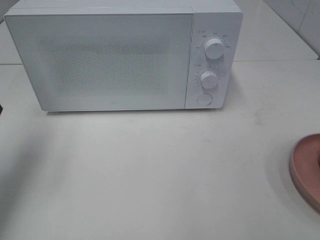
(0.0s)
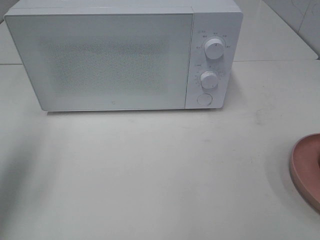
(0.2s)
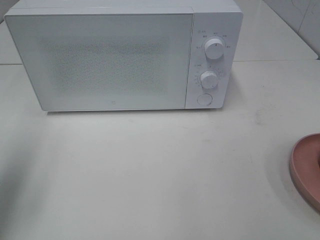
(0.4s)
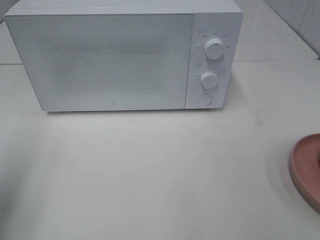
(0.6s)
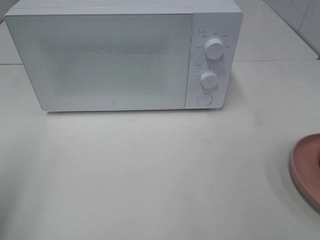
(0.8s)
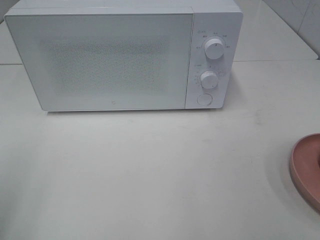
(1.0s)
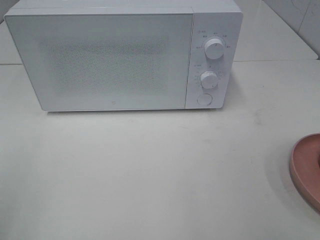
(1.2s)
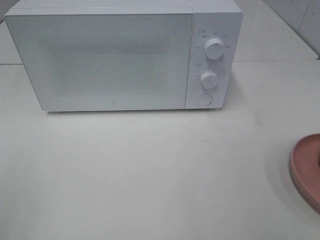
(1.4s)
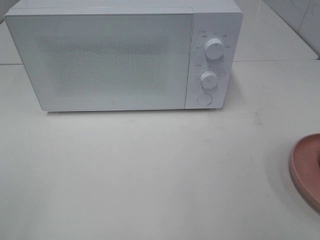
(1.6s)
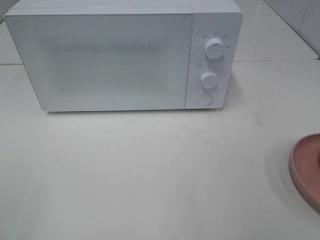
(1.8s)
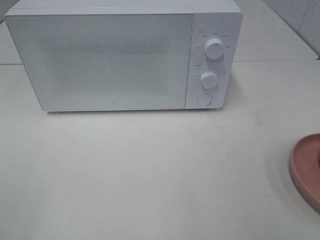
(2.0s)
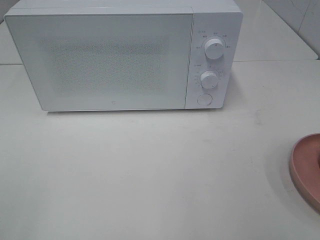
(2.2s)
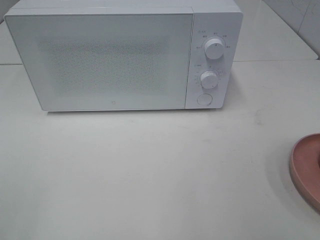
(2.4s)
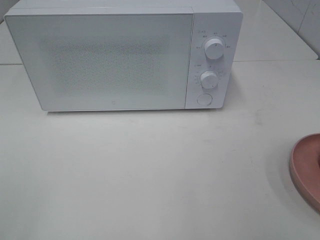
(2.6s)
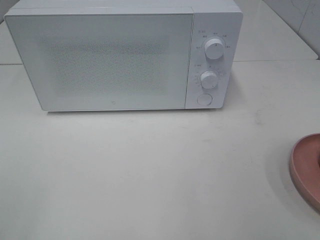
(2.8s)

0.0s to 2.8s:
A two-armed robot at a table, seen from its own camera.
Task of the whole recording: Heat the burger.
0.0s to 1.4s: The left gripper goes some 20 cm backward.

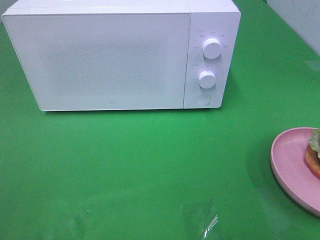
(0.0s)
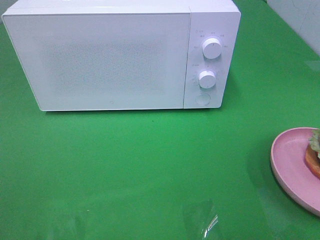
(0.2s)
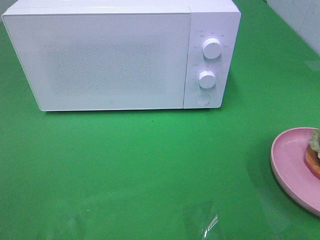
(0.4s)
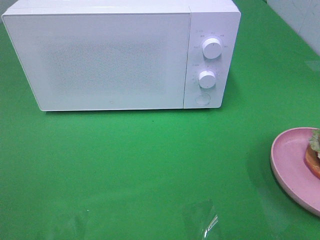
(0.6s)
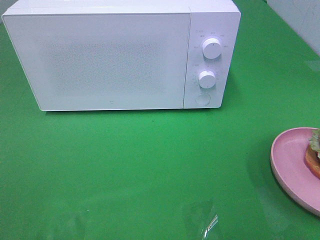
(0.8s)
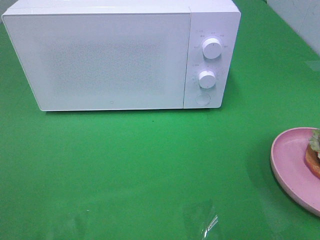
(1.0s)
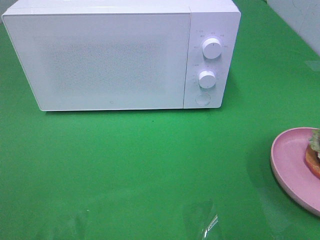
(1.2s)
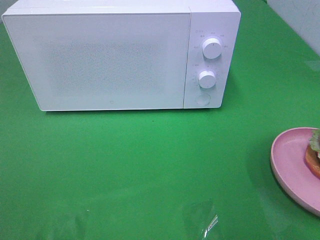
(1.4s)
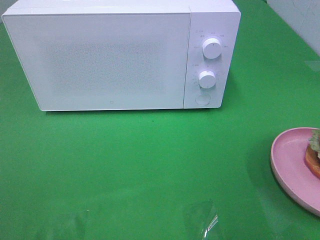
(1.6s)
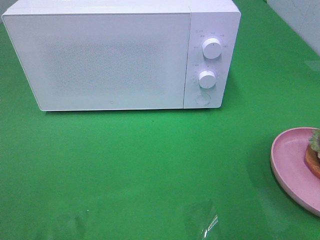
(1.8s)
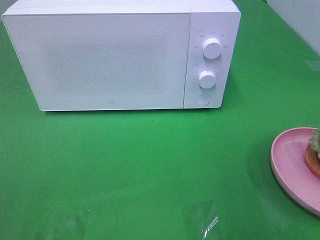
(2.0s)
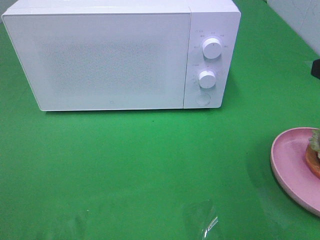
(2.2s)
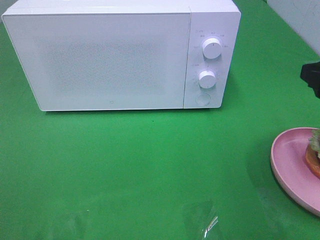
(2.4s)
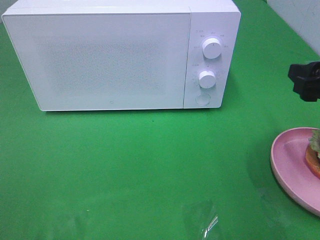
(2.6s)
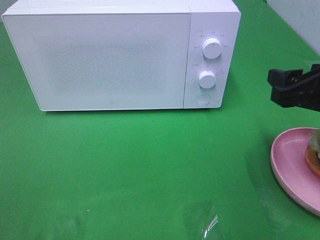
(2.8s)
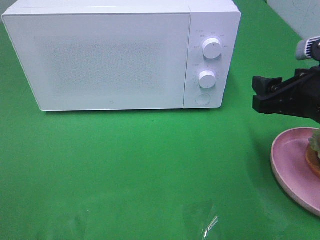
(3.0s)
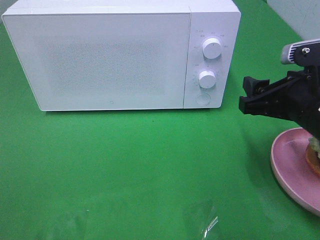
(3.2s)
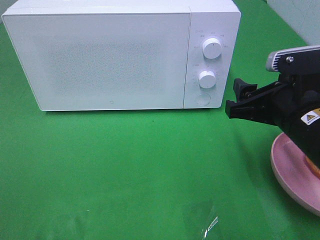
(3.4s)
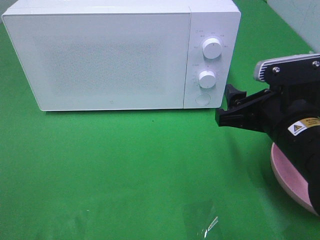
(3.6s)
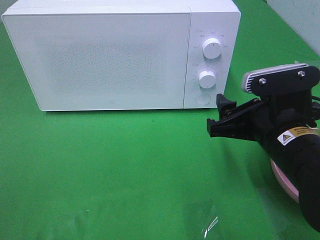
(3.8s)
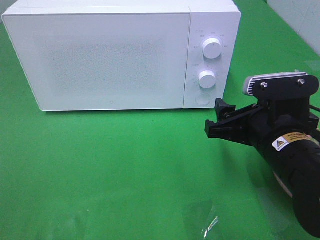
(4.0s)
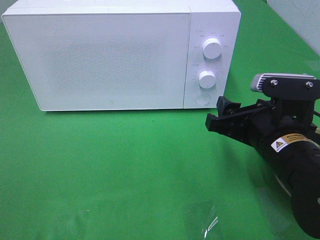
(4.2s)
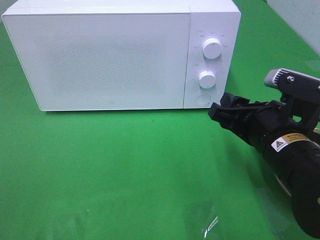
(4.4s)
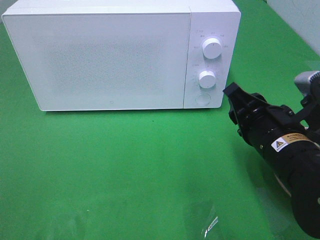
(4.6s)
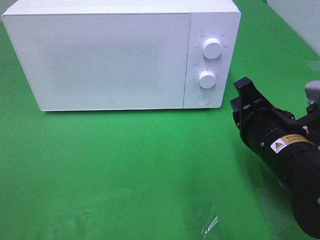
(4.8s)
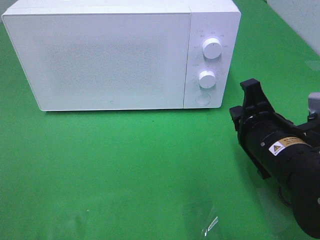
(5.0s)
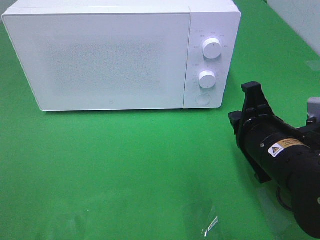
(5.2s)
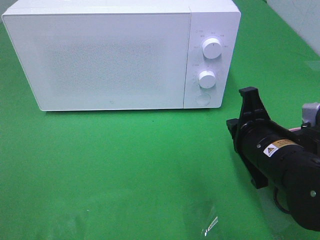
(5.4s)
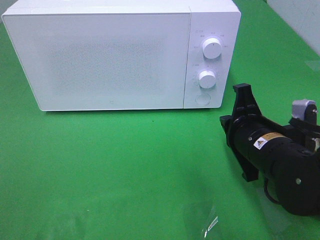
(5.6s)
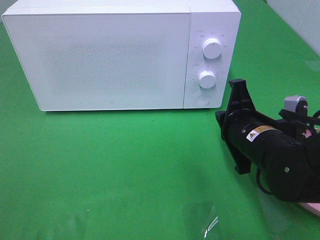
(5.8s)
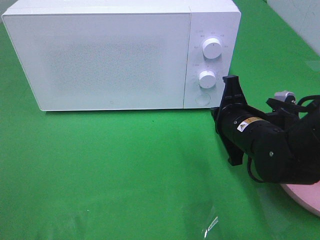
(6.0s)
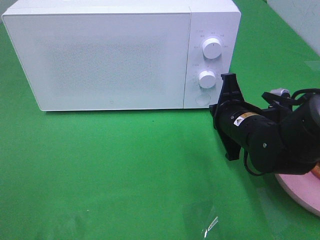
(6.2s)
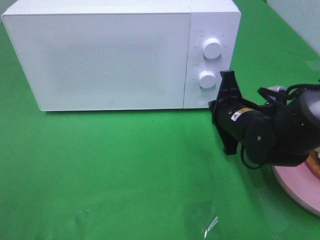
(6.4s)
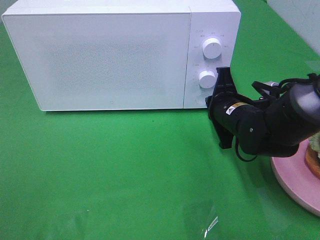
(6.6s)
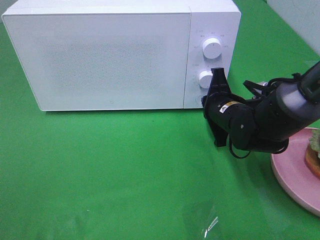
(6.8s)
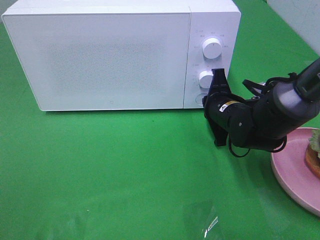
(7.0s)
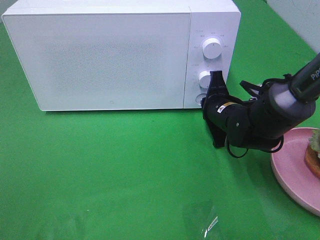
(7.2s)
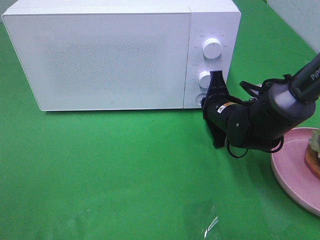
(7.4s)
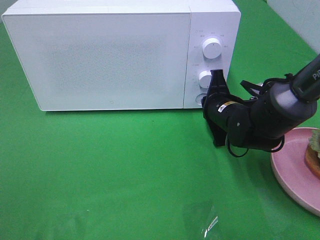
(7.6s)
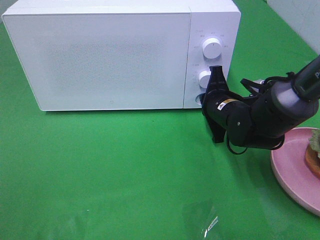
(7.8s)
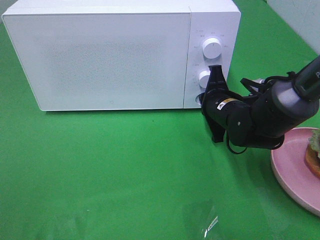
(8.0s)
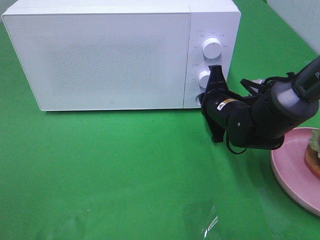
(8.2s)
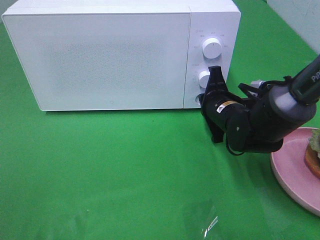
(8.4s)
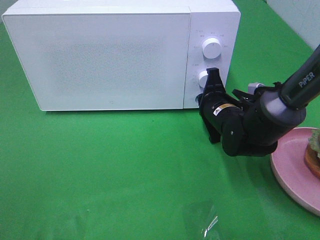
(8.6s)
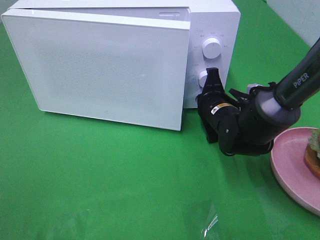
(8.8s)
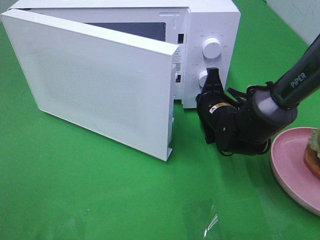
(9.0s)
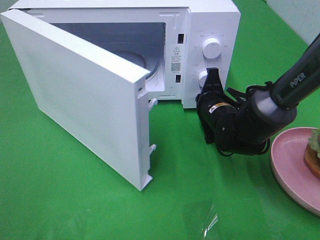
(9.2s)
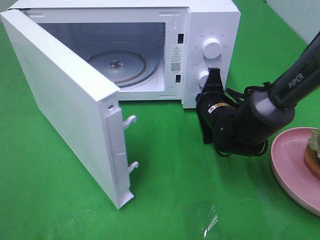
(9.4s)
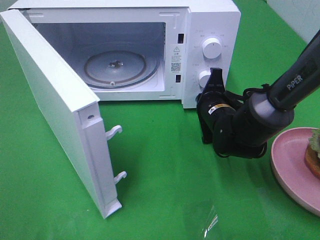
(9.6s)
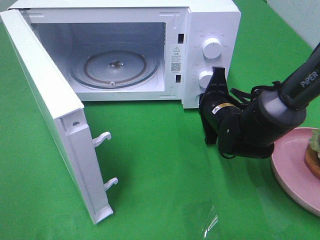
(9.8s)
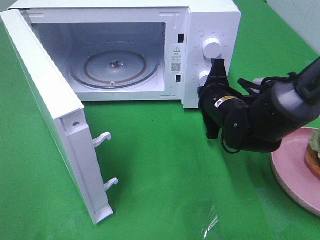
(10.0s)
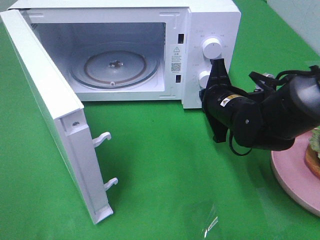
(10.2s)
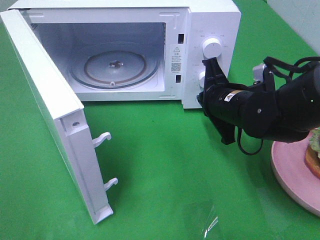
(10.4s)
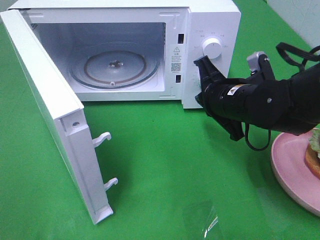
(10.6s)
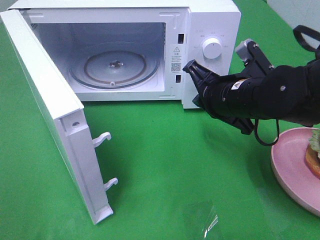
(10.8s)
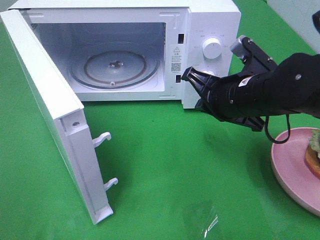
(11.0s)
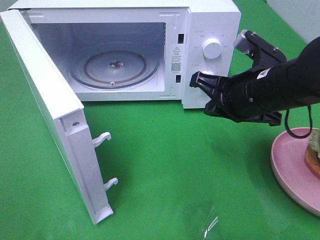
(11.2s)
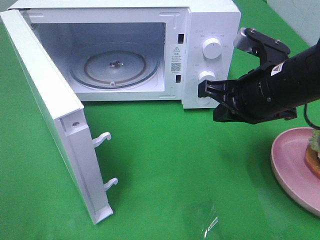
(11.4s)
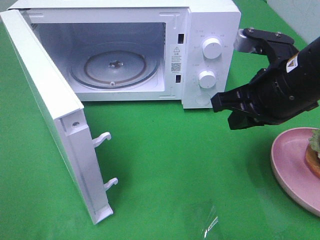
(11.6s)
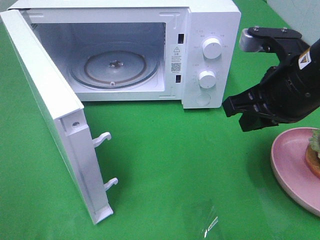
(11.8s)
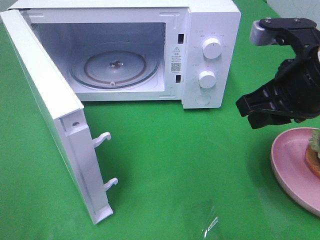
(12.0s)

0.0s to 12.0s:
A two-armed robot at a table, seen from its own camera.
Task of the whole recording: Heat the burger.
Step, 0.0s to 10.0s: Right hand: press the switch.
1.6s to 3.0s: The right gripper goes roughly 15 cm downward, forward and to the left.
3.0s to 4.4s: The right gripper moves to the left, some 5 cm.
4.4s to 6.0s: The right gripper goes roughly 5 cm forward, and closes.
6.0s to 7.6s: The right gripper is displaced forward by about 10 cm.
7.6s to 9.0s: The grippers move only a little.
9.0s to 10.4s: The right gripper is displaced upward by approximately 5 cm.
10.4s to 12.0s: The right gripper travels upward, backward and to the right by some 15 cm, and opens its fingers.

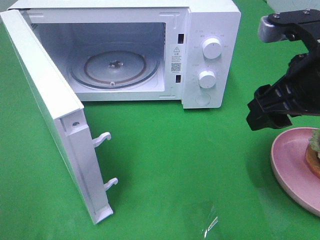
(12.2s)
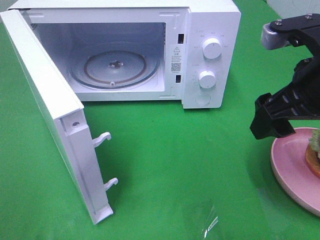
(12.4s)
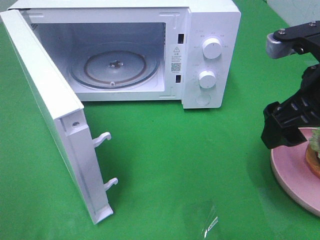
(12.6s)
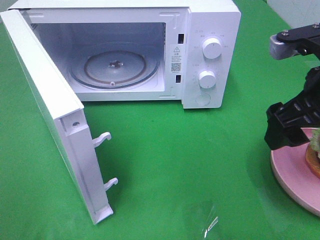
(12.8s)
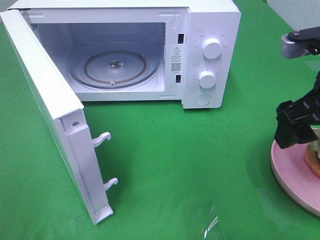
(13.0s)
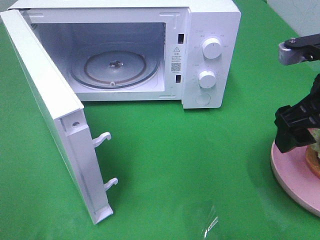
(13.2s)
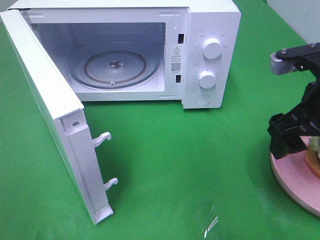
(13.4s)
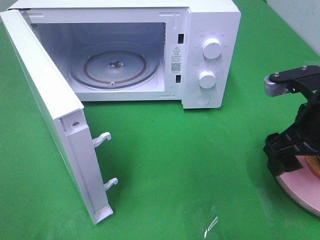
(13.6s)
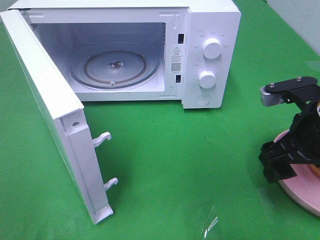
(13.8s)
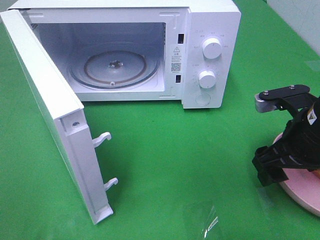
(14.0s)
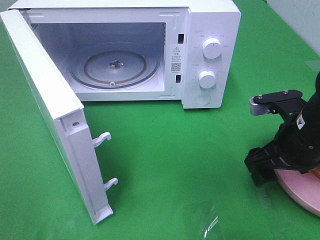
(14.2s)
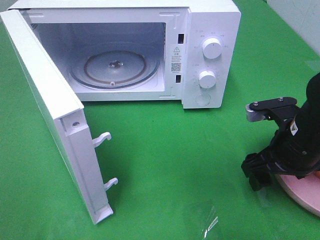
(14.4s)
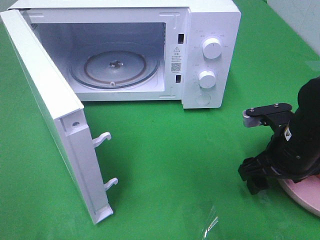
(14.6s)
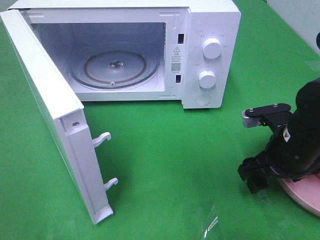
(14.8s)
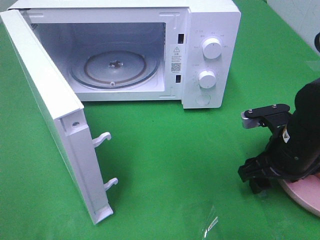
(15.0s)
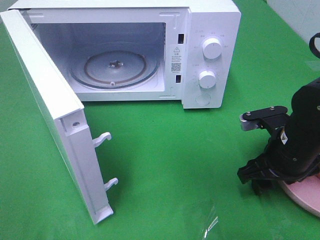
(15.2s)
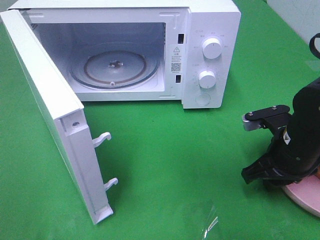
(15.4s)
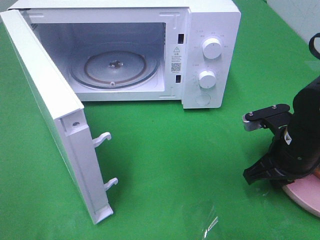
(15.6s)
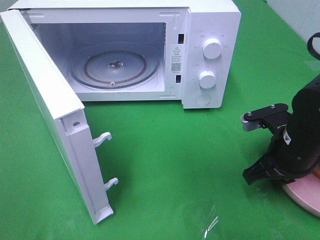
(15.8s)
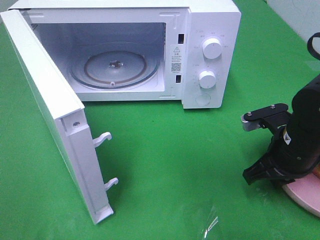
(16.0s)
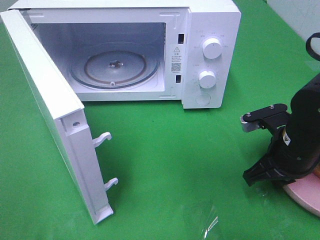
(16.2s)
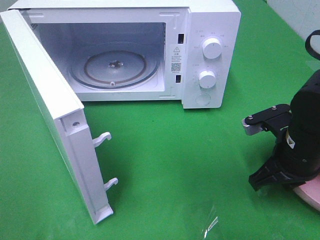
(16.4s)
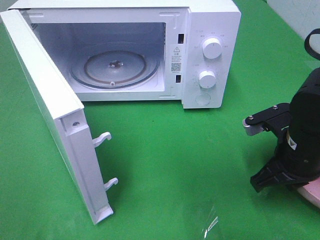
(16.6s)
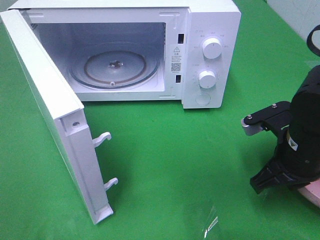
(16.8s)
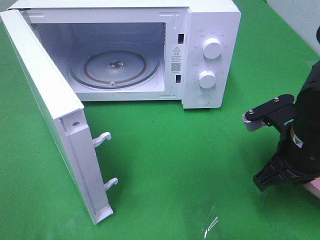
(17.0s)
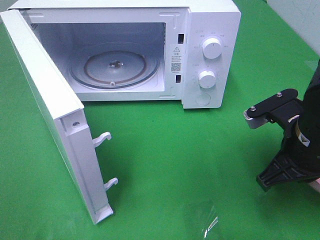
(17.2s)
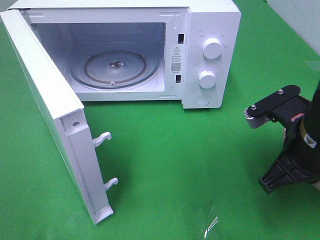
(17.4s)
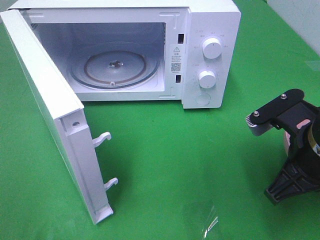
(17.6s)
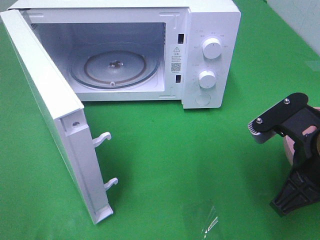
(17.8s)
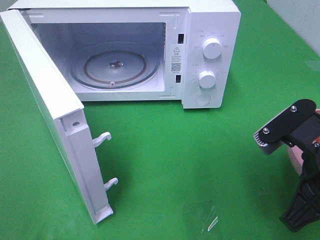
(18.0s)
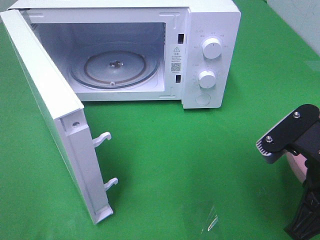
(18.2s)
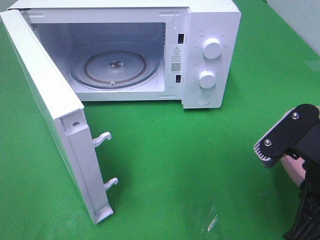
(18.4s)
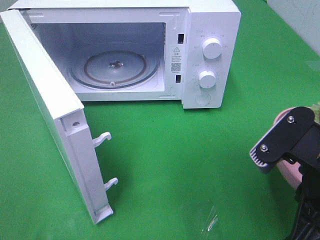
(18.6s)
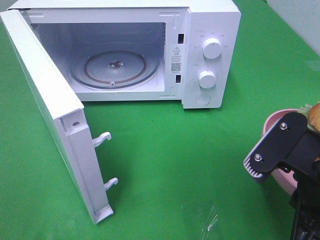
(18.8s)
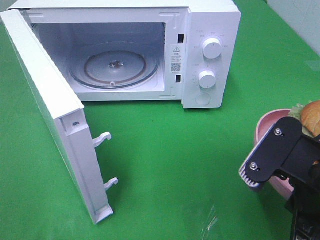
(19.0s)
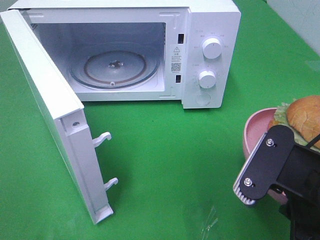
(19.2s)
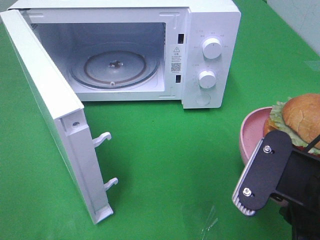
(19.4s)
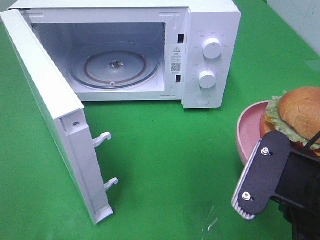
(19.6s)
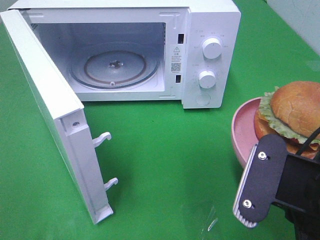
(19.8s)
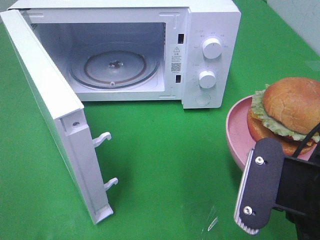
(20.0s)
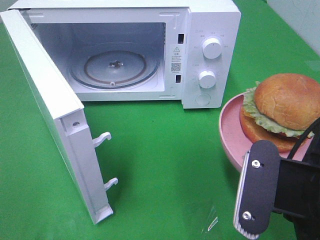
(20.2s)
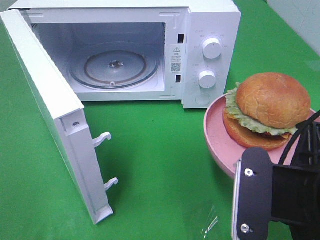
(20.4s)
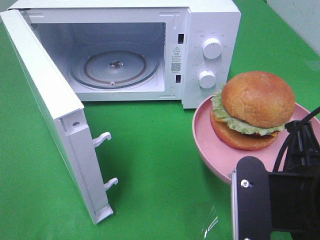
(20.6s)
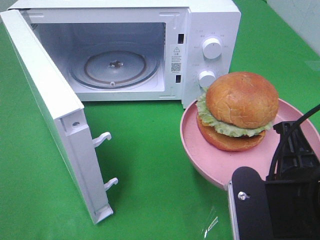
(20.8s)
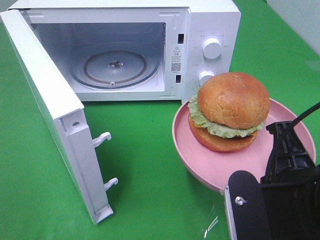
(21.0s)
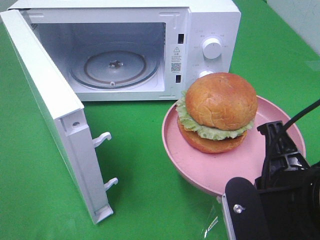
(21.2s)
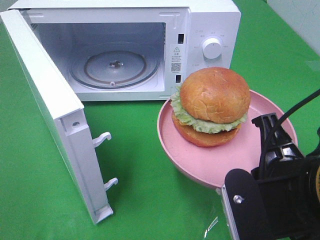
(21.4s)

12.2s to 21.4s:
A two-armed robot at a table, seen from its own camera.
Task of the whole recording: Heat the burger.
Step, 12.2s to 16.4s: Right hand: grab the plate with the hamburger.
12.2s to 13.8s: The right gripper moves downward, roughly 10 cm.
13.8s to 15.2s: The right gripper shifts some 10 cm downward.
15.2s to 16.8s: The right gripper closes up.
16.8s to 18.4s: The right gripper moves backward and upward, some 10 cm.
